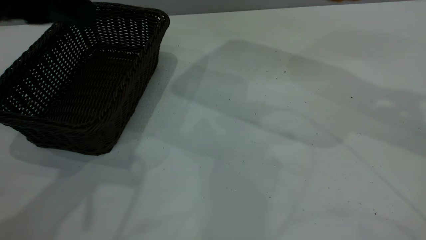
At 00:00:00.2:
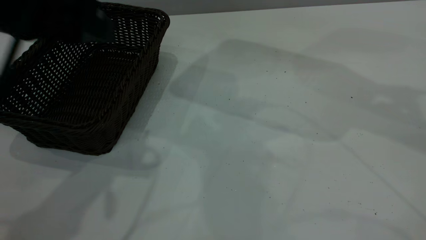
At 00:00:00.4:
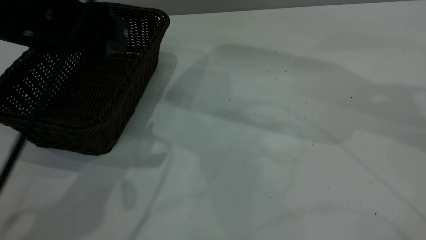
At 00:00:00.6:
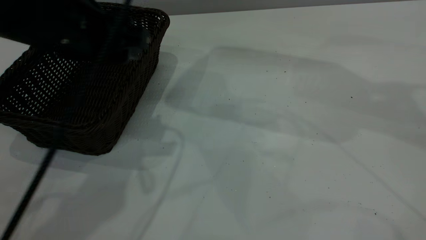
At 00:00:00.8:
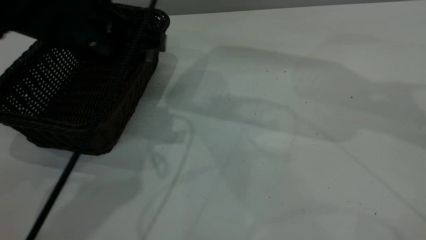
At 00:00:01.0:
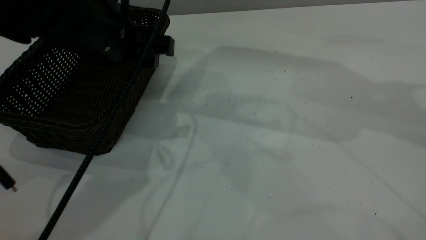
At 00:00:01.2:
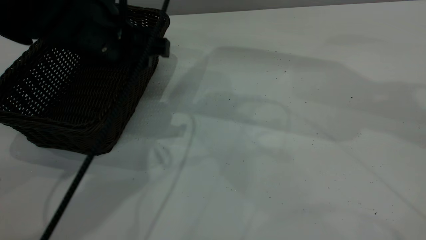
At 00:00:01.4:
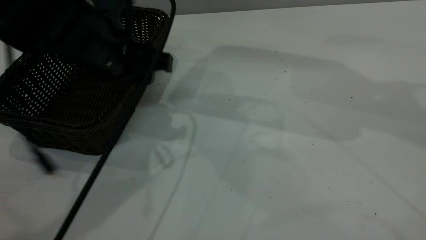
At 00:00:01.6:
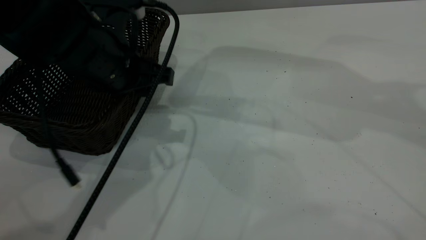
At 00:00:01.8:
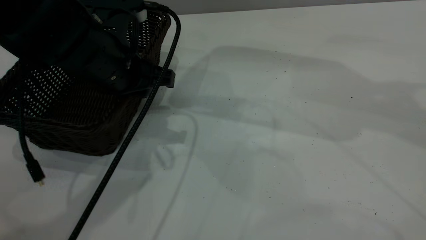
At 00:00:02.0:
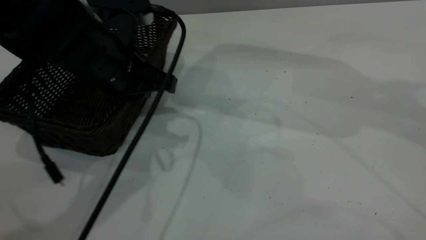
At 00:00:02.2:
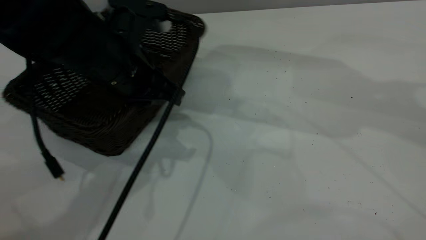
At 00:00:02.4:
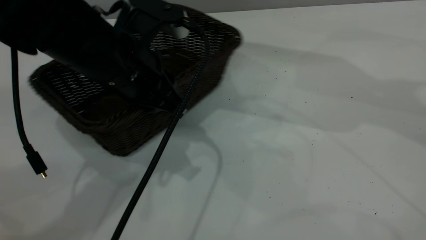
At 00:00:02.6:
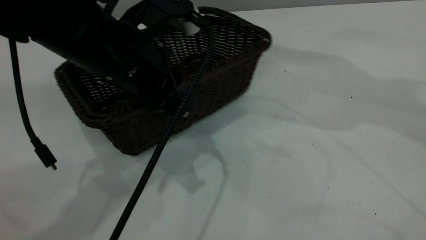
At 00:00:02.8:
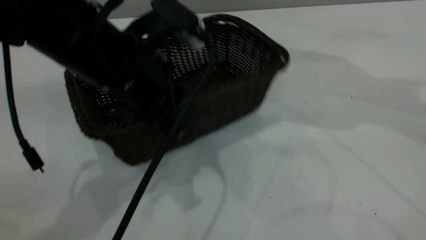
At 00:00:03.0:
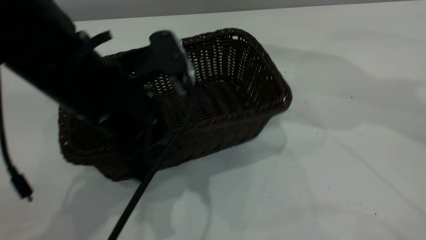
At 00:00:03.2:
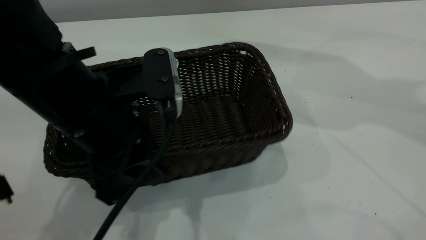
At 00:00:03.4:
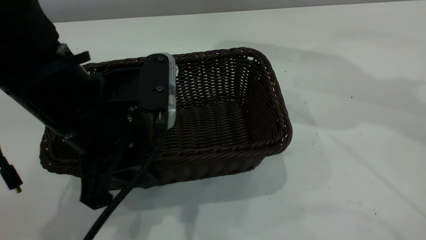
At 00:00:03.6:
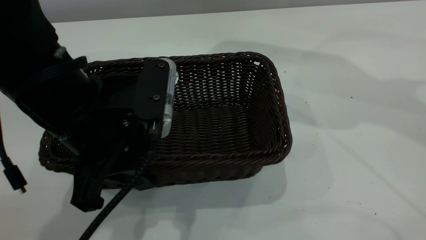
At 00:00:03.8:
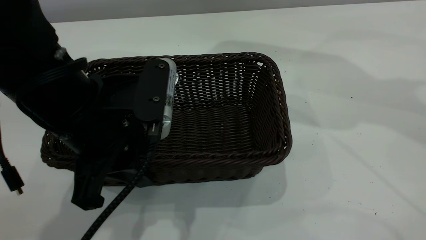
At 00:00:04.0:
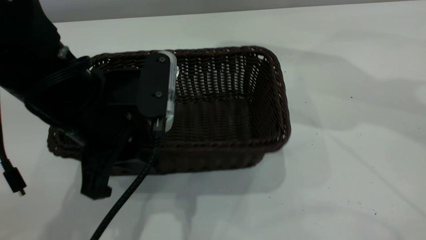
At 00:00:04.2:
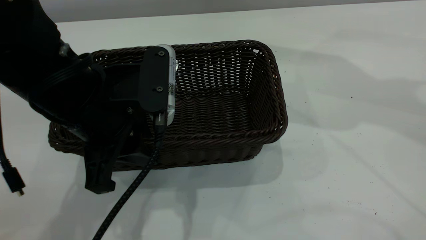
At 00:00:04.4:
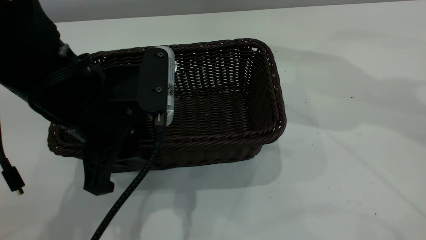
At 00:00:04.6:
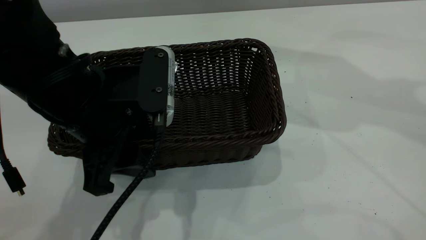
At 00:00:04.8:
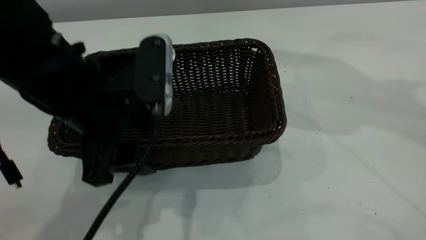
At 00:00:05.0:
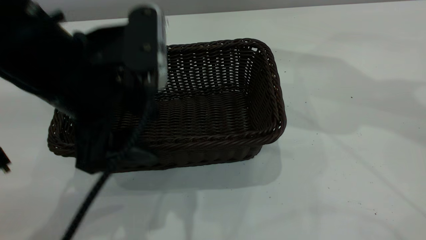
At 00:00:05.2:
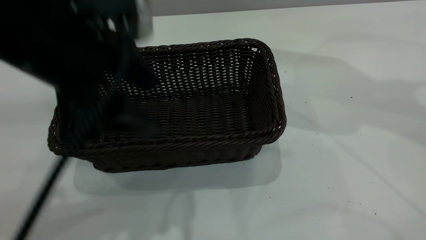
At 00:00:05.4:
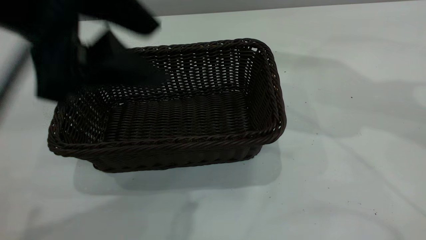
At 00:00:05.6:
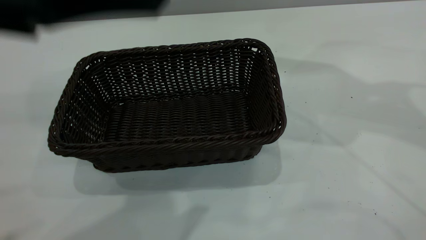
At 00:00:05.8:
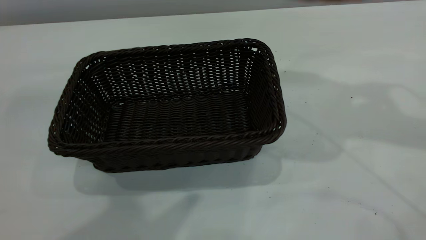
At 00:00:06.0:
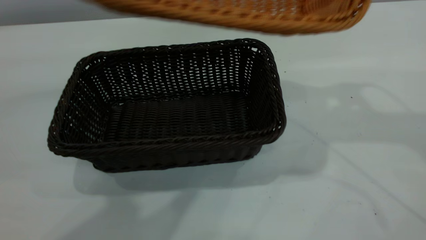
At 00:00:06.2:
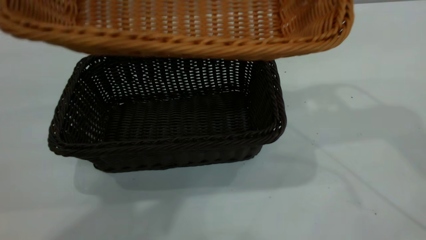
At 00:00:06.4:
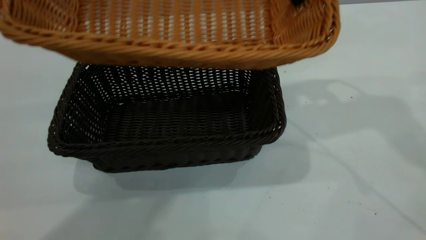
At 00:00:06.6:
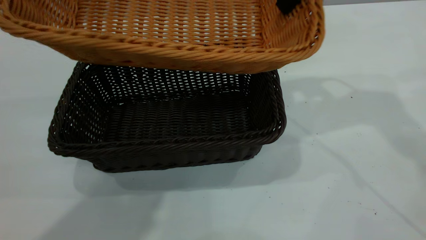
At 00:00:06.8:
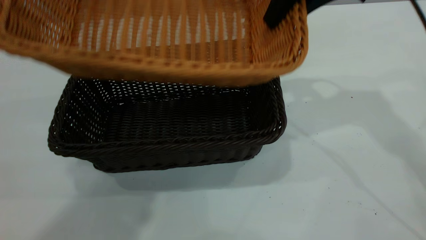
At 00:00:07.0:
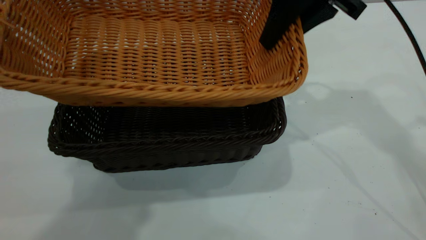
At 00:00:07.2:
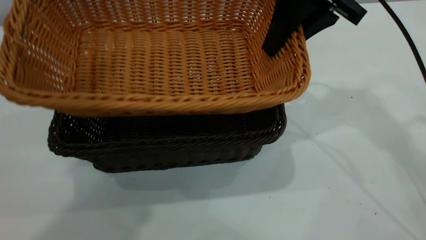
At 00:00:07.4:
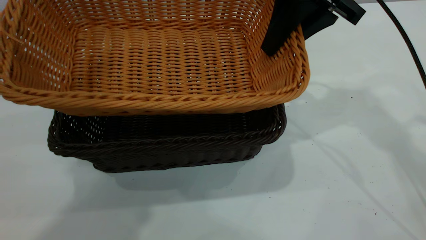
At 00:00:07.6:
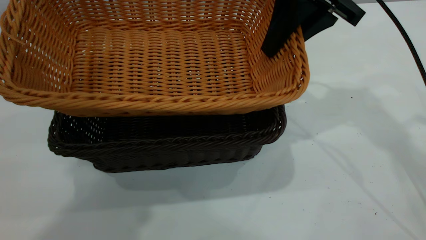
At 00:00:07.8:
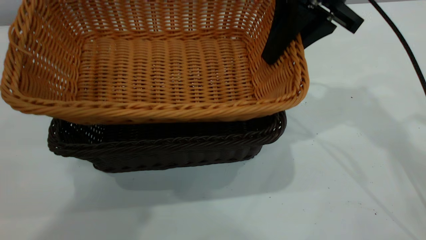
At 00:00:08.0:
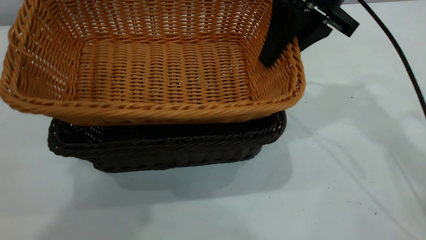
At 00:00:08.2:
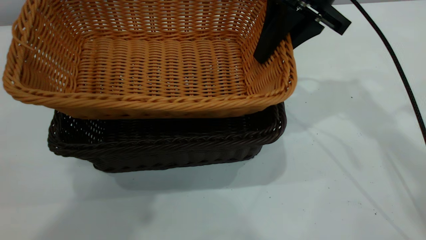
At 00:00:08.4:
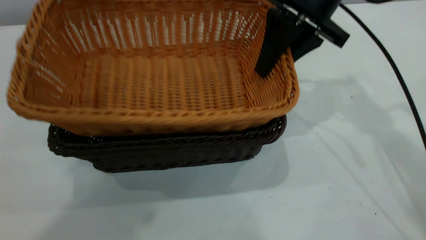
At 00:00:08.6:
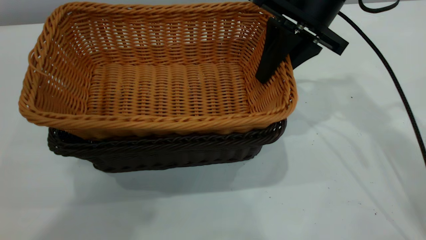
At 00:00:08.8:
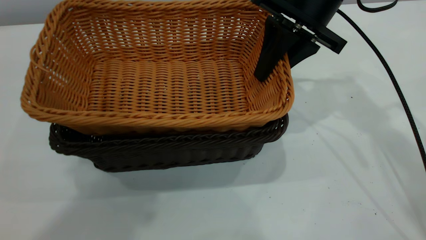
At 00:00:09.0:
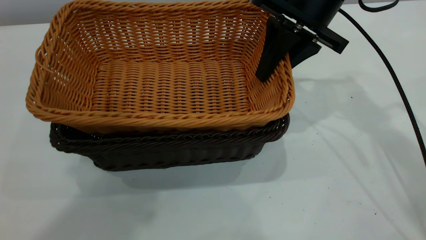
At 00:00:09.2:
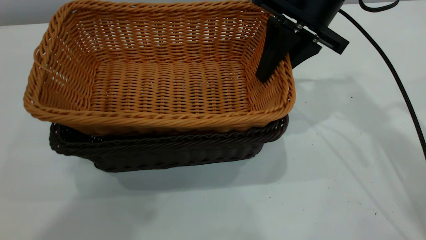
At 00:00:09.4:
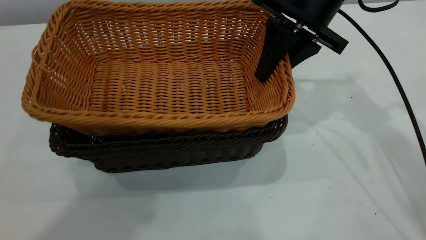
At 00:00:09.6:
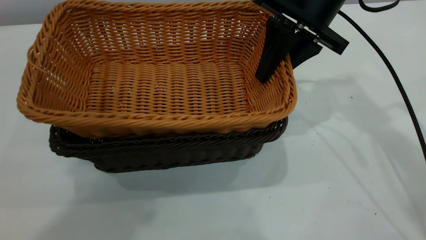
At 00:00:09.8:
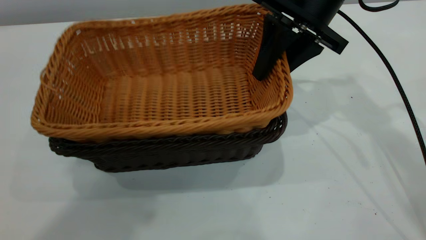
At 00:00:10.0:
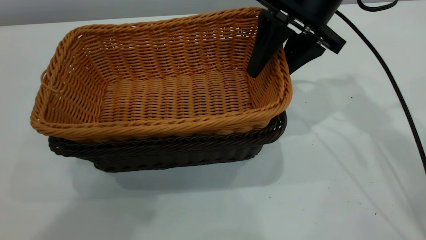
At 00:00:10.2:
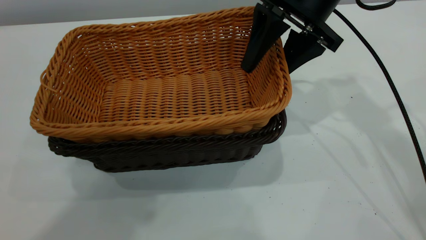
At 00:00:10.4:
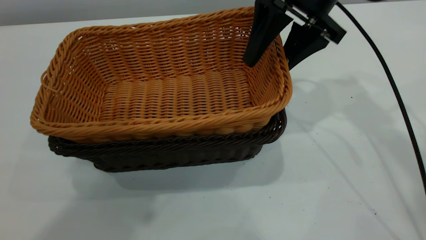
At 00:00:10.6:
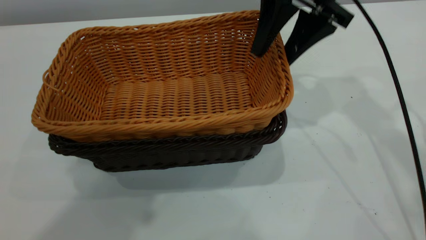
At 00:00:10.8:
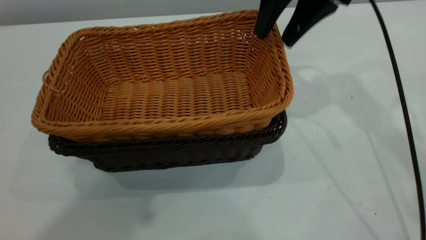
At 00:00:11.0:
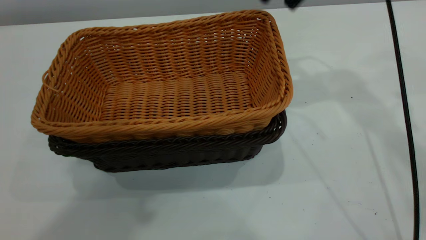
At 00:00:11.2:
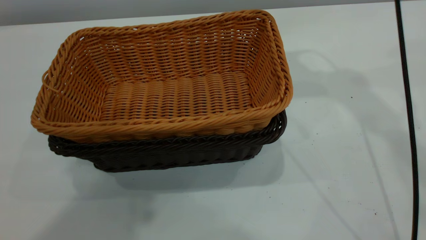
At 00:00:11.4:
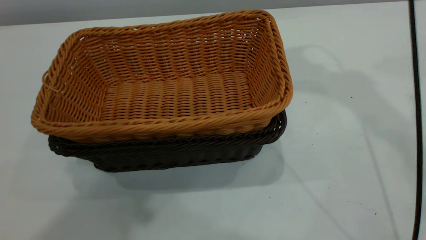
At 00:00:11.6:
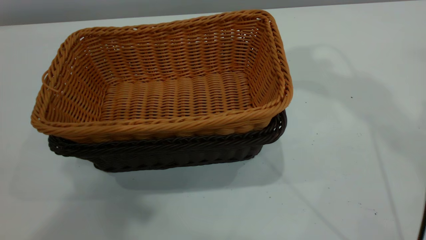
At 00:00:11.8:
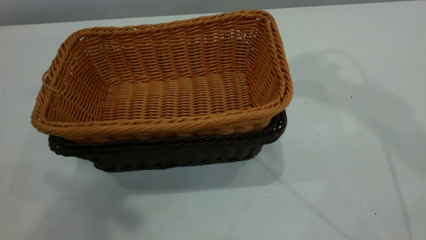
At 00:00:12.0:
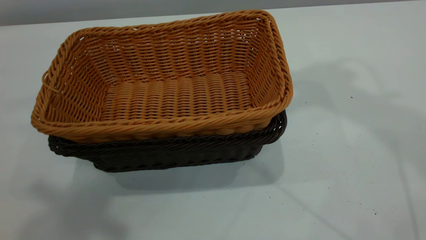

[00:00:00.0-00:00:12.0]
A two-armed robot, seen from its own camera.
Task of the whole recording: the left gripper grasp the black basket and place it in the center of the table, the right gripper grasp the brown basket and place it inside the black one.
Step, 00:00:00.0 to 00:00:05.2: Move the dark basket to the center of view.
Step, 00:00:05.4 to 00:00:10.8: Place the light basket on the dark basket.
00:00:00.0 to 00:00:01.6: The left gripper is displaced downward, to the right and forward by roughly 15 cm.
00:00:01.6 to 00:00:03.0: The left gripper goes some 10 cm backward, and closes its fingers.
00:00:03.0 to 00:00:04.4: The grippers stay close to where they were, moving slightly.
00:00:04.4 to 00:00:06.0: The right gripper is displaced to the left by roughly 5 cm; the left gripper travels upward by some 25 cm, and opens.
00:00:06.0 to 00:00:07.6: The right gripper travels downward by some 10 cm.
00:00:09.0 to 00:00:10.4: The right gripper opens its fingers.
00:00:10.4 to 00:00:12.0: The left gripper closes; the right gripper moves upward, about 35 cm, and closes up.

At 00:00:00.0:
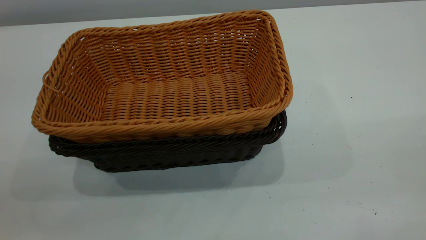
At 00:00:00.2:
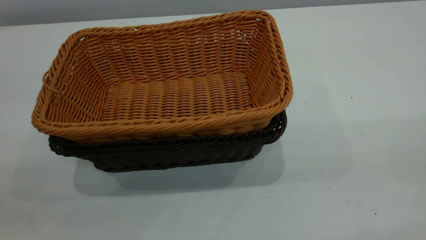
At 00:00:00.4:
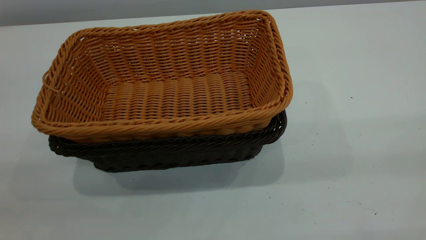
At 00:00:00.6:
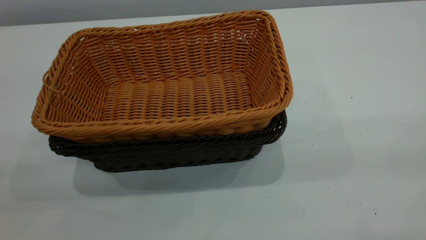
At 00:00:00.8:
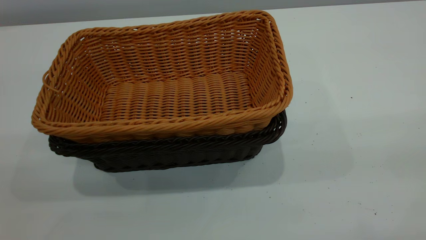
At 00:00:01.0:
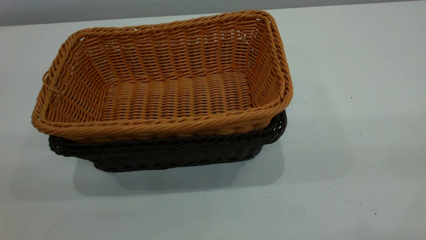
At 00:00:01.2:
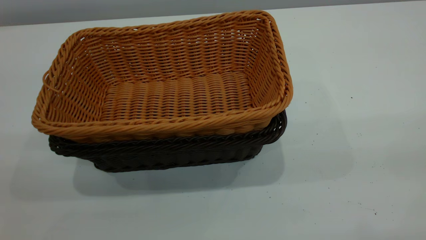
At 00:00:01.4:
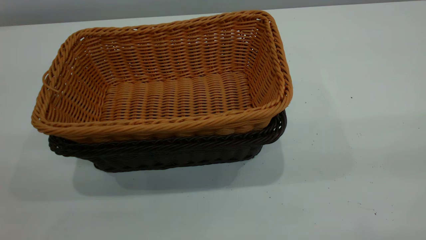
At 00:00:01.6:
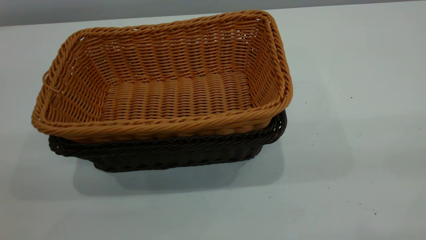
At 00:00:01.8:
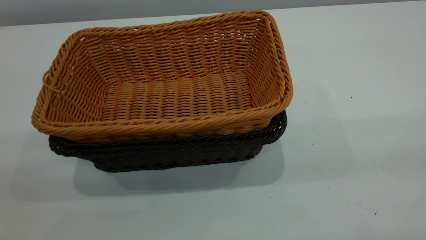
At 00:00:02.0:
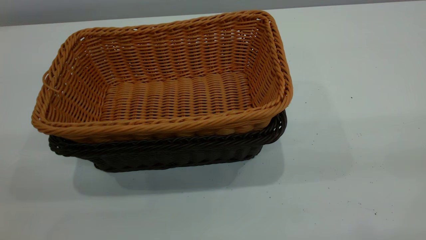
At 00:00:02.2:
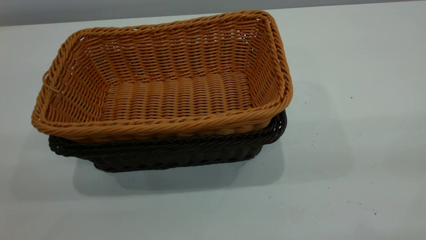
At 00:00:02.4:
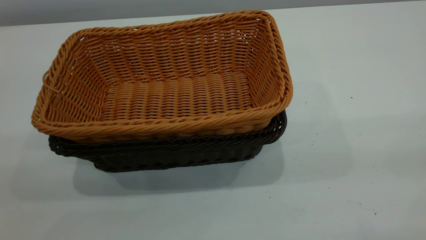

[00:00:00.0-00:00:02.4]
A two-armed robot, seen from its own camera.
Task of the whole recording: the left gripper grasp the black basket and place it in the center of the table, the right gripper grasp the brown basket and place it inside the black one.
00:00:01.2 to 00:00:02.4: Both grippers stay put.
